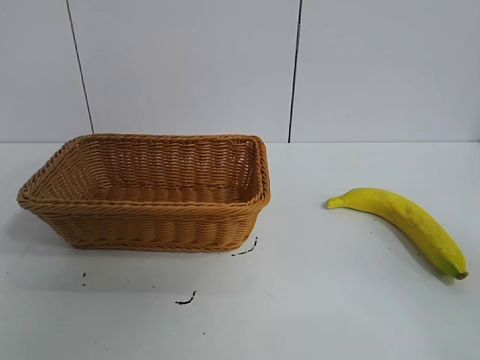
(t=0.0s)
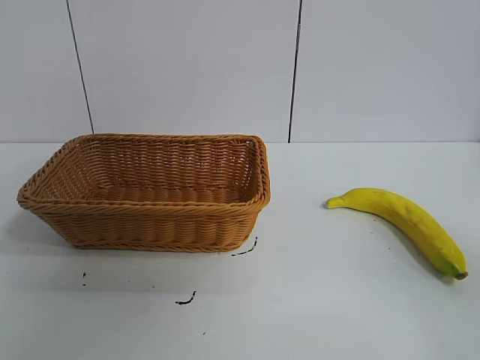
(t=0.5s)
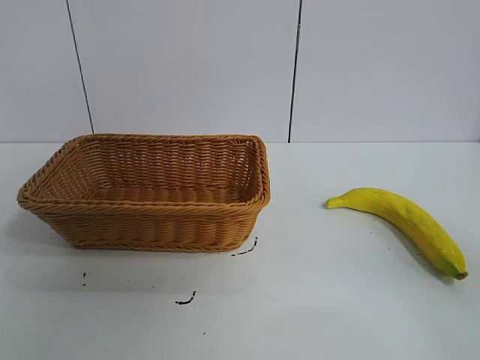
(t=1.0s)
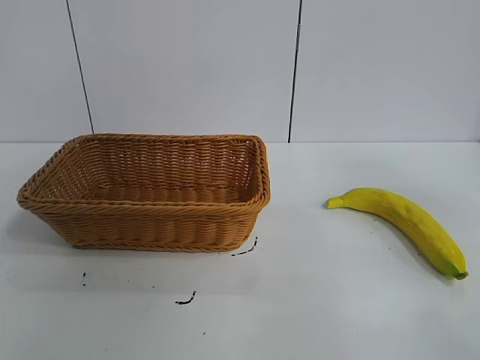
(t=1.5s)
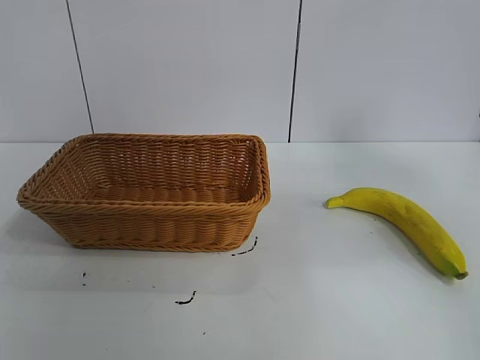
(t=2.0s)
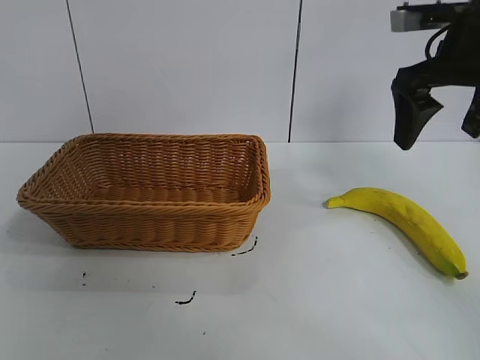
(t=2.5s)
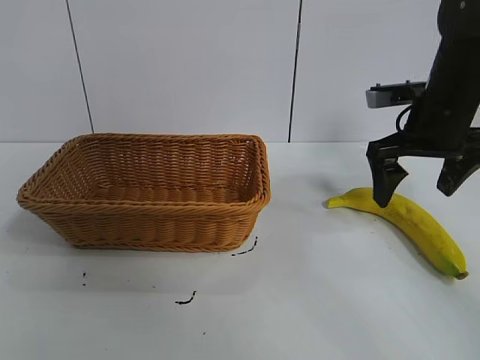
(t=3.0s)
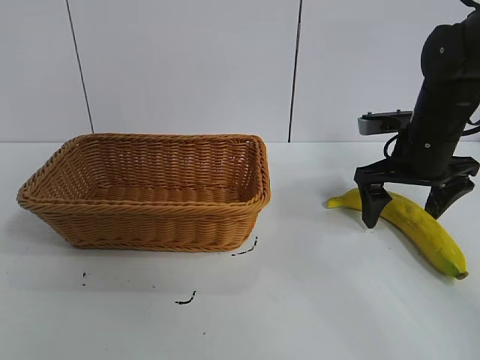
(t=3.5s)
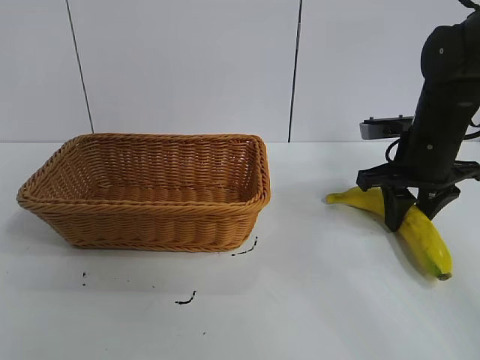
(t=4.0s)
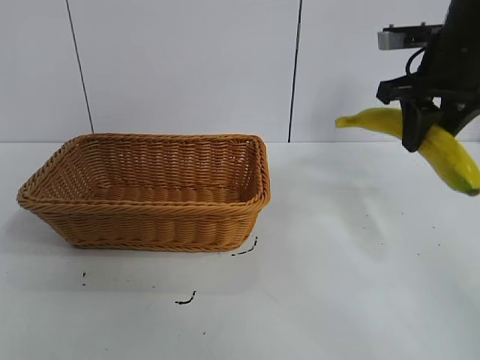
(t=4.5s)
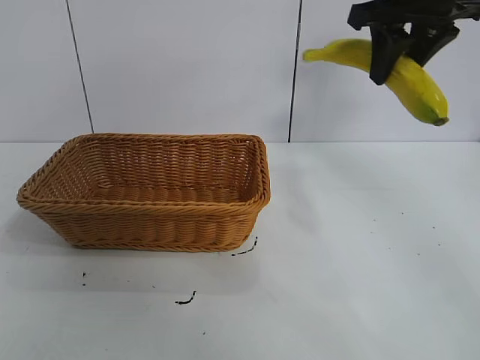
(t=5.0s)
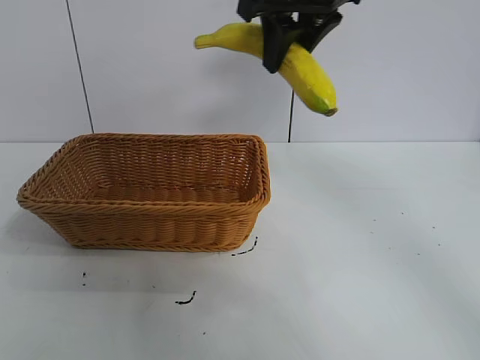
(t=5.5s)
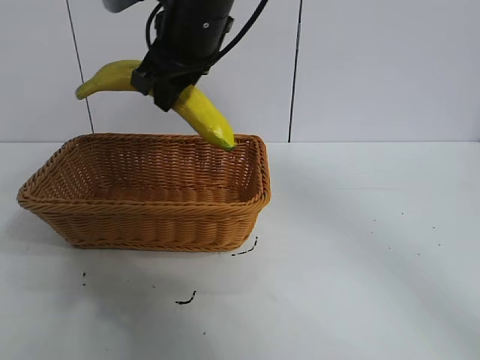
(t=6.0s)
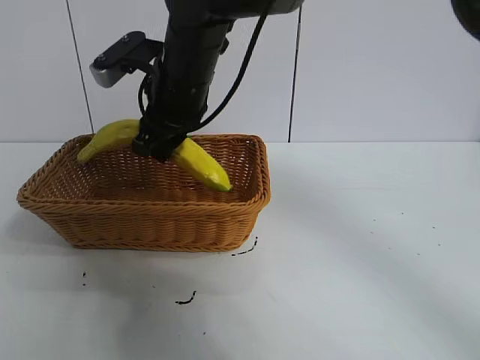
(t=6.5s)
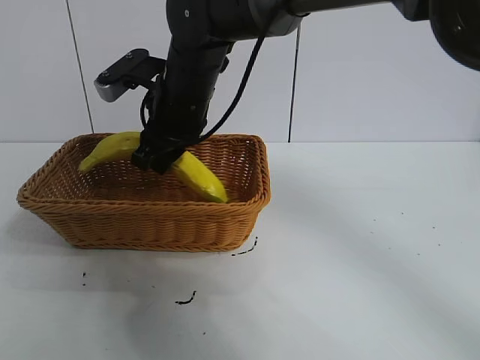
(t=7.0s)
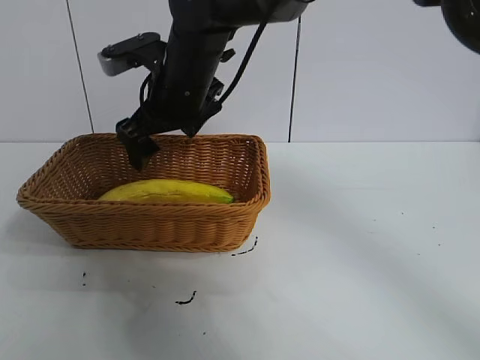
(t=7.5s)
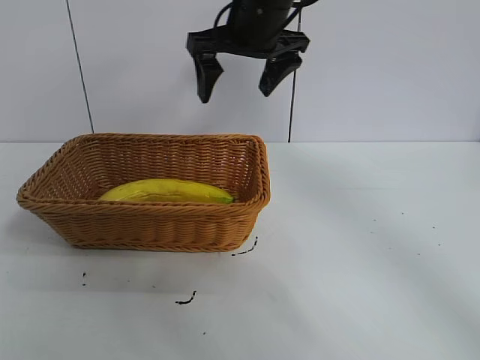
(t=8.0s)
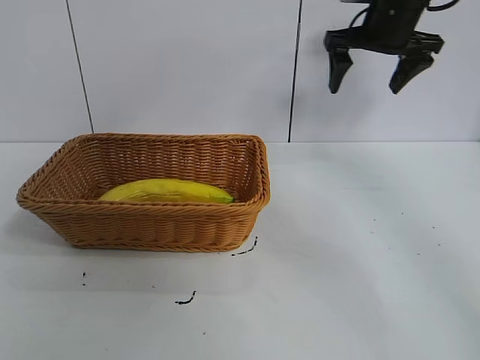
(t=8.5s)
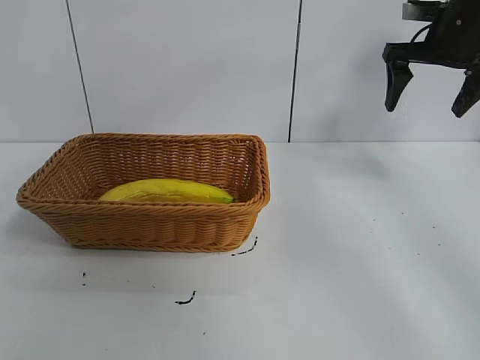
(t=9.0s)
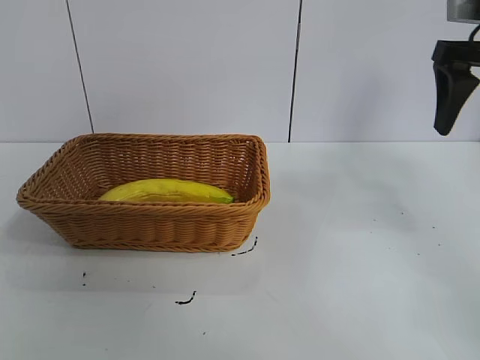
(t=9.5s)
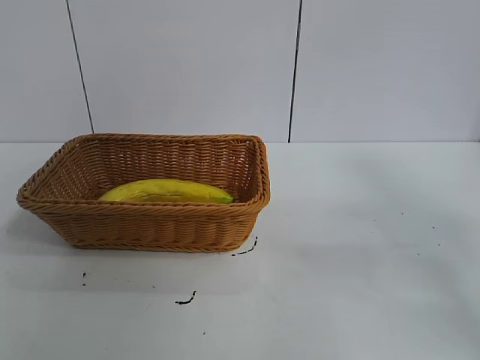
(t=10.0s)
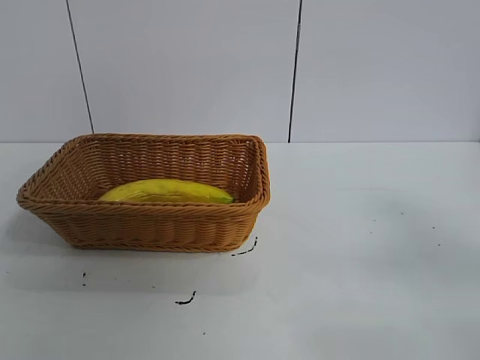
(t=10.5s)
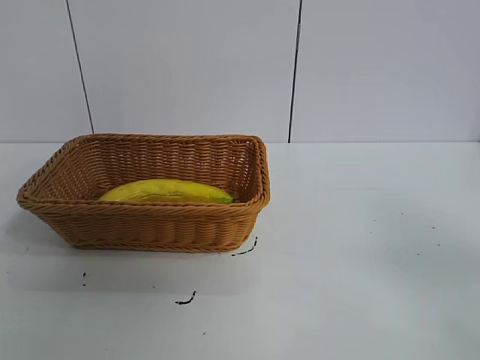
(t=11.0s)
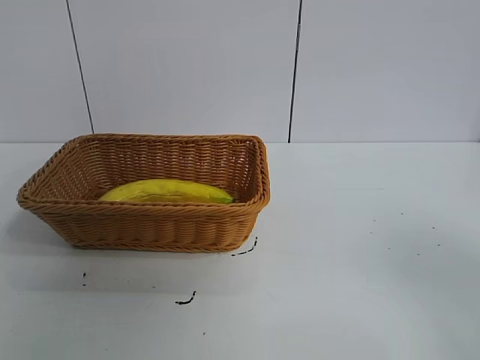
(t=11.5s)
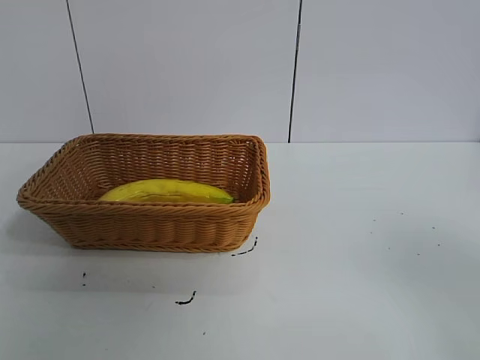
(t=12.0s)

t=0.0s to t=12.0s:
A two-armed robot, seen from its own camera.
Task of the whole recording: pick up the banana and put it into the basket.
Step, t=1.0s to t=3.5s: Grasp the banana with right gripper.
Step, t=4.0s to t=7.0s: Place the banana in the basket with right gripper.

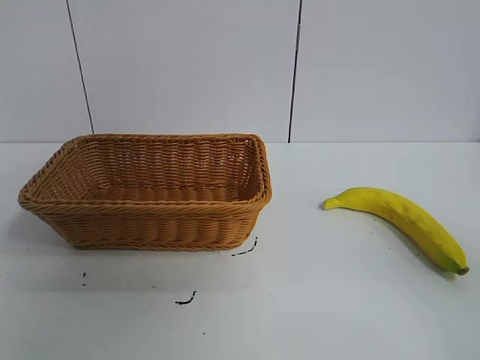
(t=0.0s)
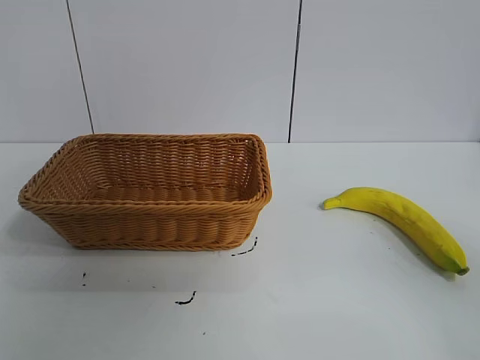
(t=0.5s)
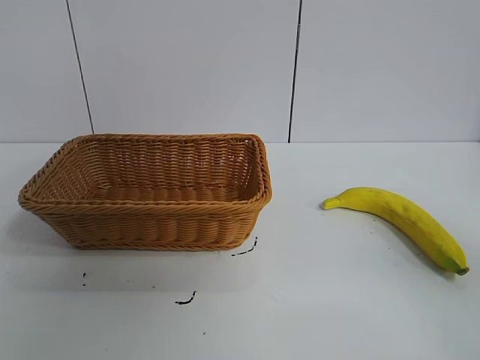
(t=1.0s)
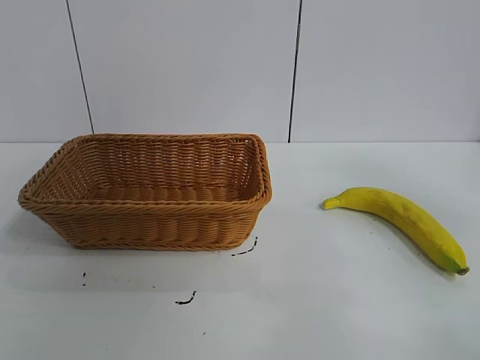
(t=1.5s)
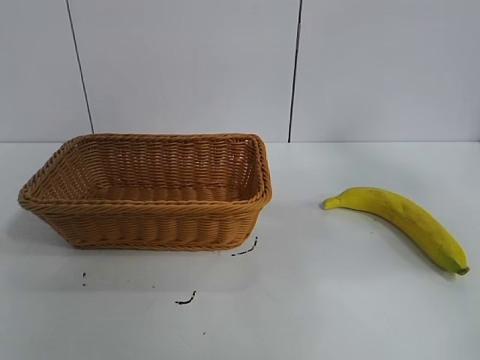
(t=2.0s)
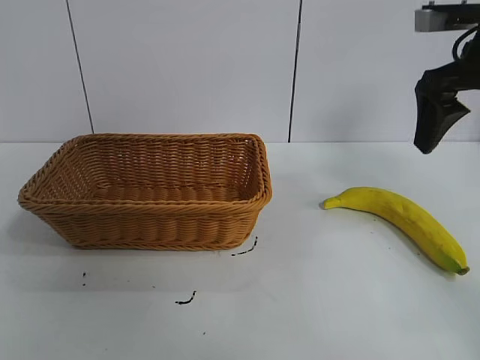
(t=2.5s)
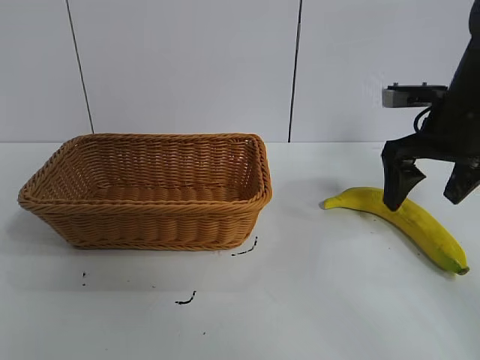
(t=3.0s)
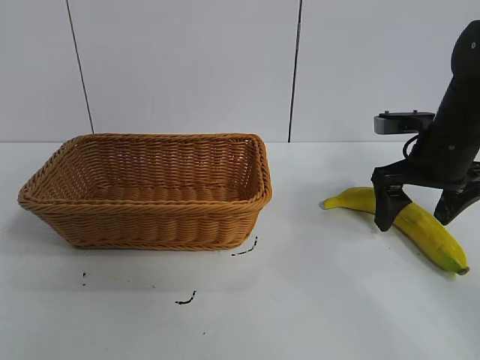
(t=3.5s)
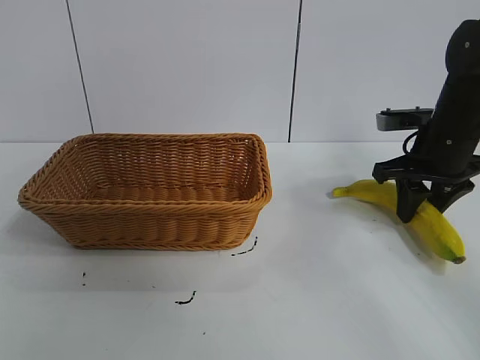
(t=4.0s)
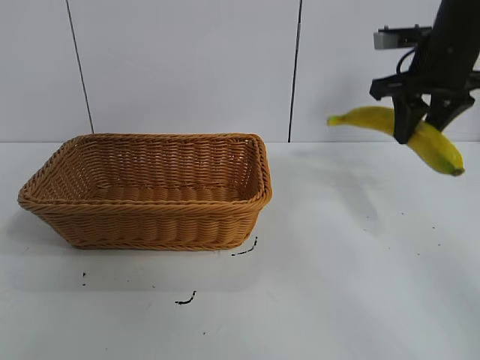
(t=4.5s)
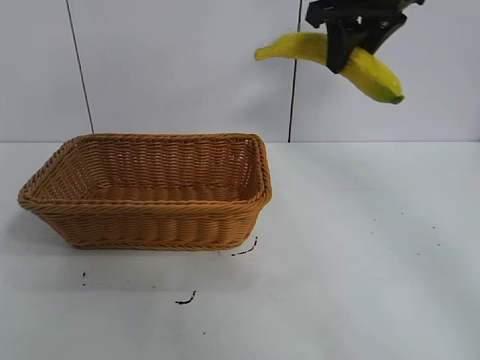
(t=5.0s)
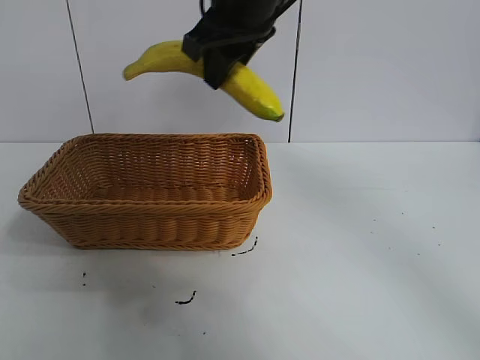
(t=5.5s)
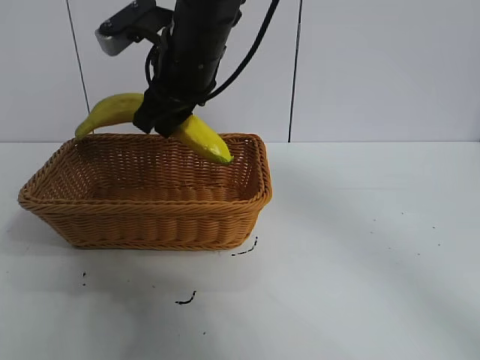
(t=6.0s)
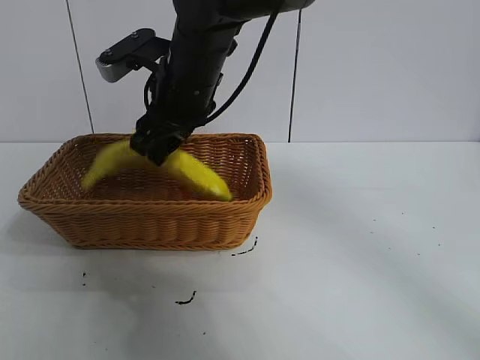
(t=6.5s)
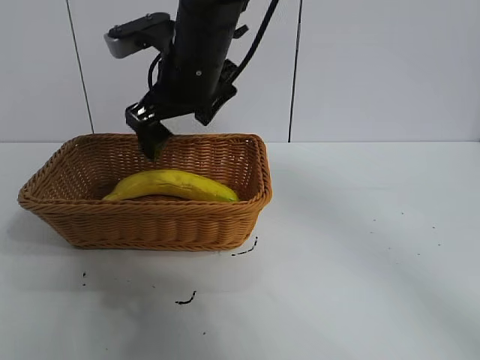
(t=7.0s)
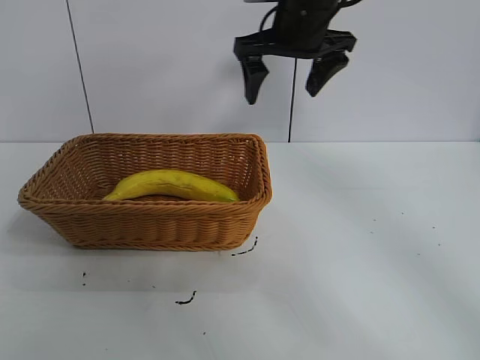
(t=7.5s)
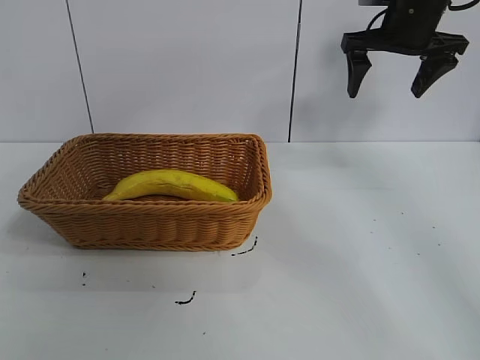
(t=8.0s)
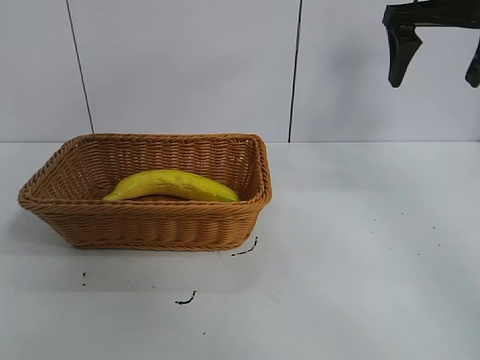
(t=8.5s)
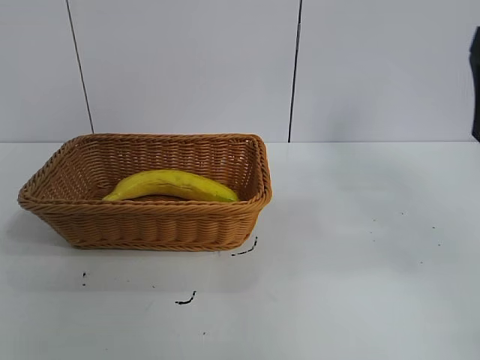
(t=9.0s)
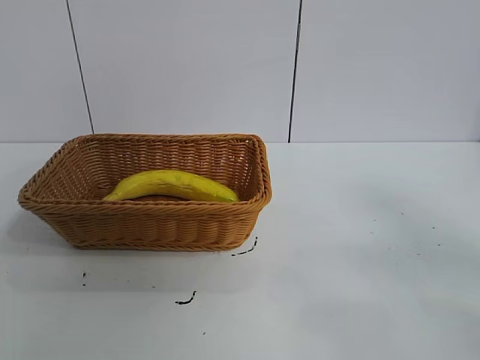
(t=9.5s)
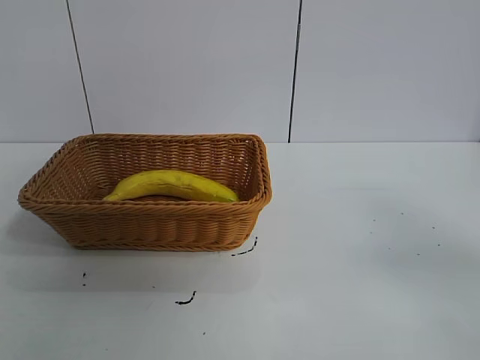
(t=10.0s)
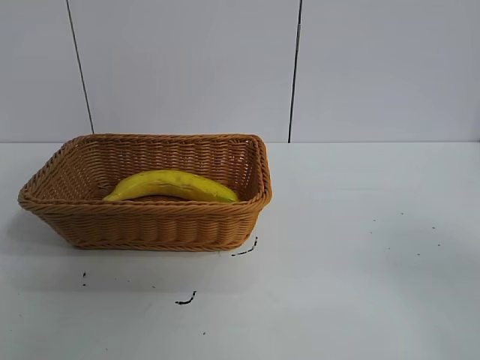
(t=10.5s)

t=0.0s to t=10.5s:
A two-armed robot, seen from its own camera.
Task of the whole recording: pick up the banana and put it into the basket.
Step, t=1.0s to t=3.5s: Grasp the banana with right gripper.
Step, t=4.0s to t=6.5s: Place the banana in the basket with right gripper.

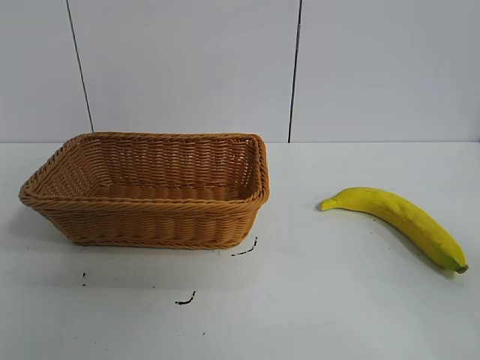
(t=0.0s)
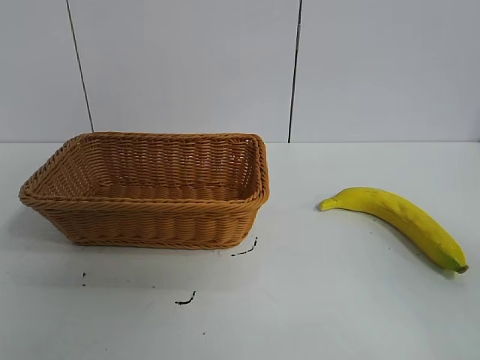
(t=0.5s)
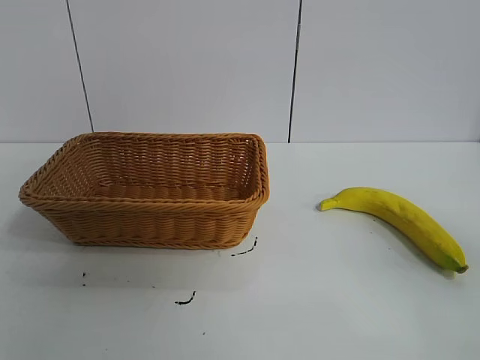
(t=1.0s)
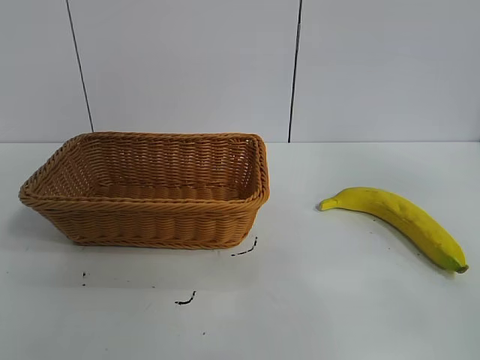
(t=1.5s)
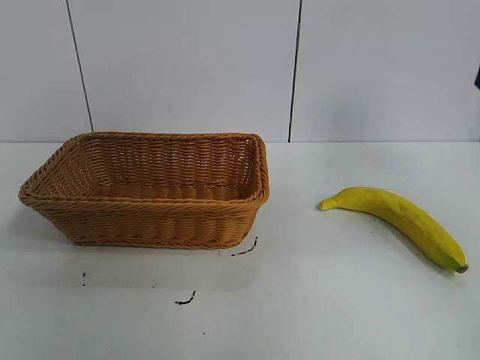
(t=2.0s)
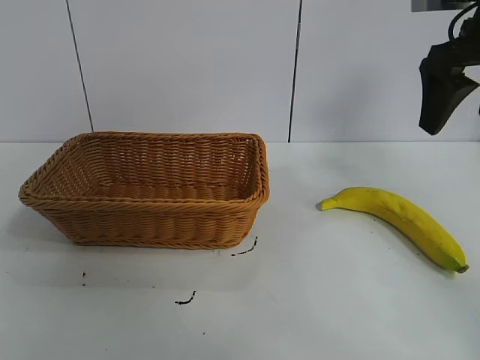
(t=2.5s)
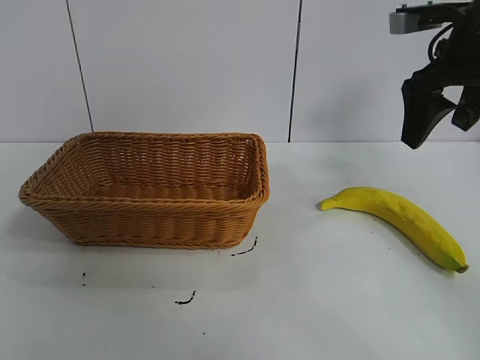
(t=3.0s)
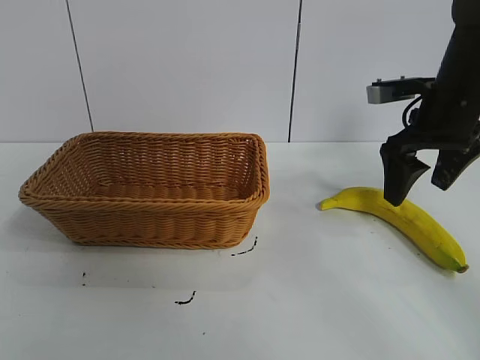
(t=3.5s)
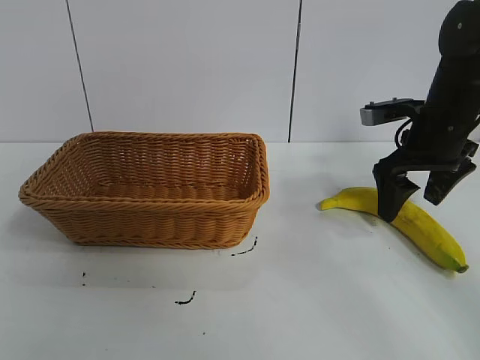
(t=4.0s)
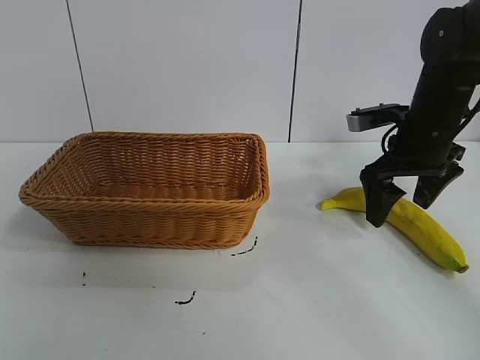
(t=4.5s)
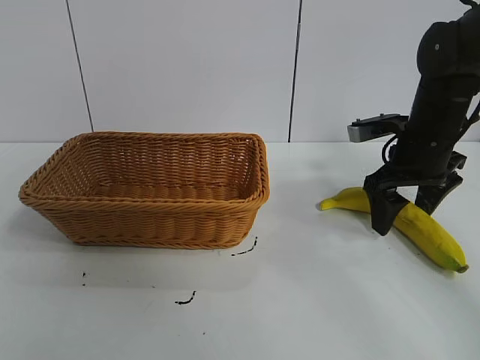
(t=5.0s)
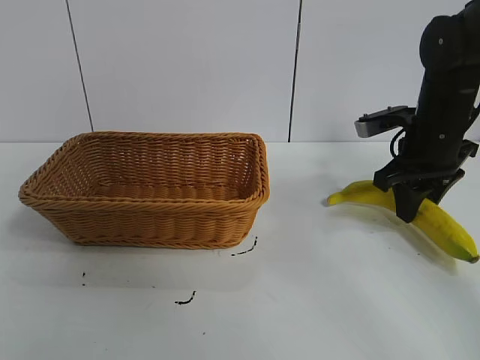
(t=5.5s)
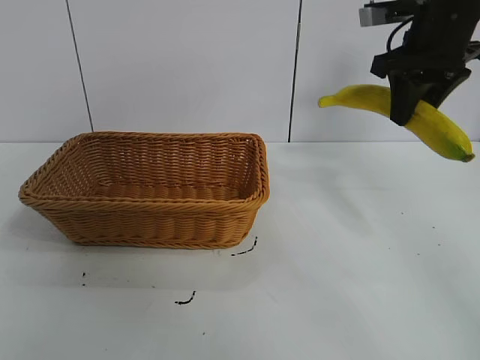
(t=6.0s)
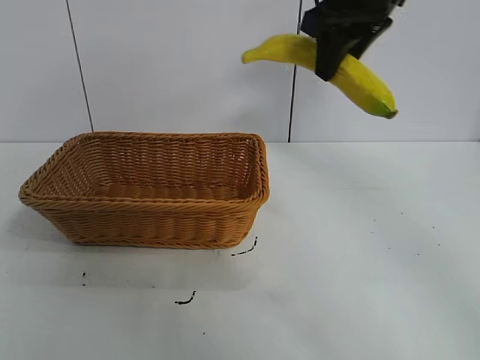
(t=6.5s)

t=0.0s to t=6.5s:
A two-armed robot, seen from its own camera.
Task of the whole recording: pick up the banana and put it into the basket.
Step, t=1.0s to t=5.0s: Grasp the banana with right gripper.
